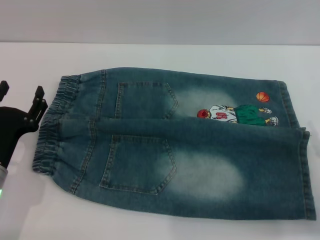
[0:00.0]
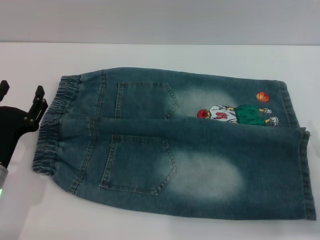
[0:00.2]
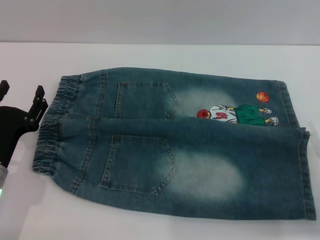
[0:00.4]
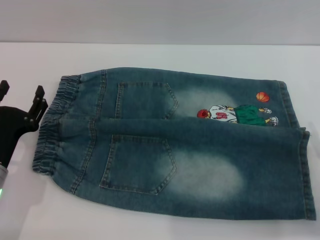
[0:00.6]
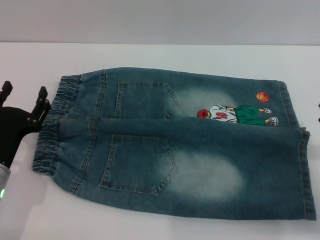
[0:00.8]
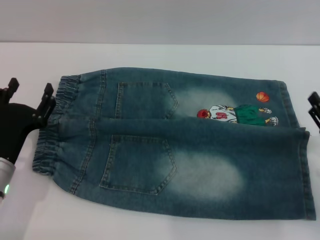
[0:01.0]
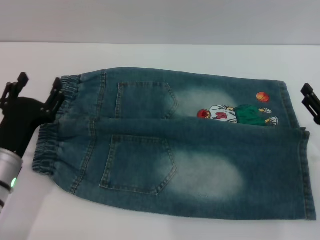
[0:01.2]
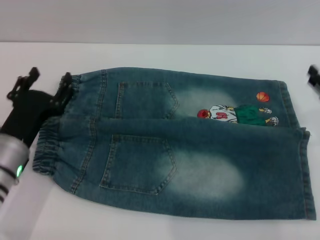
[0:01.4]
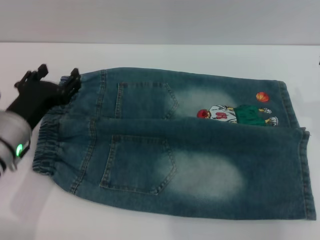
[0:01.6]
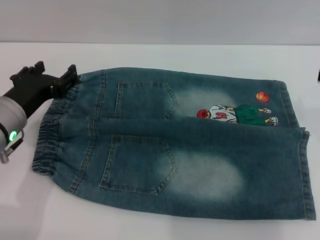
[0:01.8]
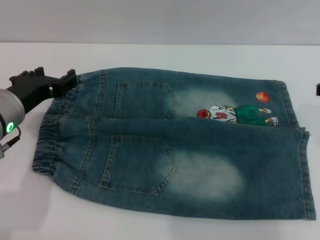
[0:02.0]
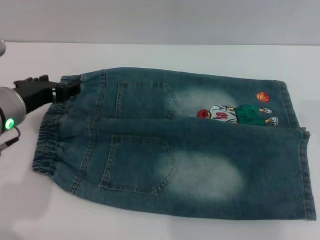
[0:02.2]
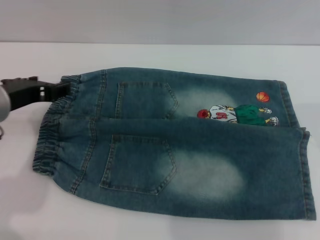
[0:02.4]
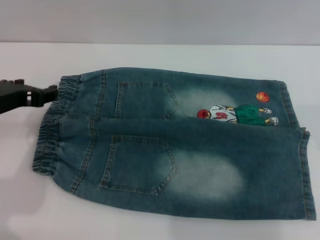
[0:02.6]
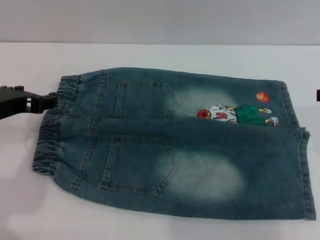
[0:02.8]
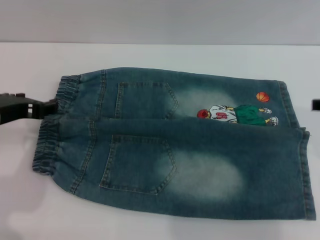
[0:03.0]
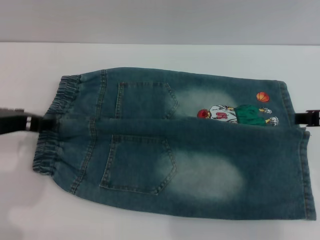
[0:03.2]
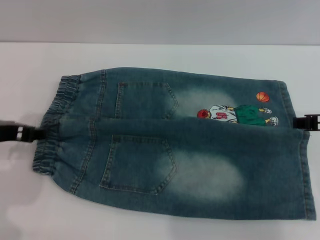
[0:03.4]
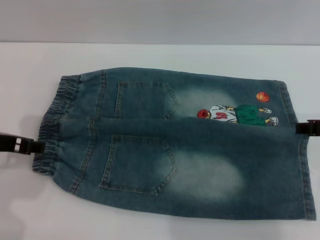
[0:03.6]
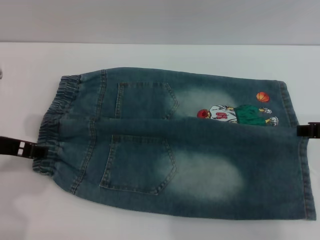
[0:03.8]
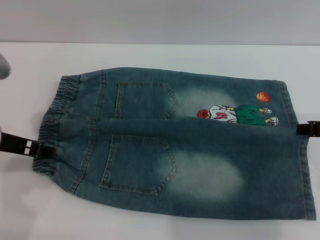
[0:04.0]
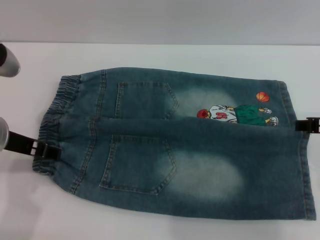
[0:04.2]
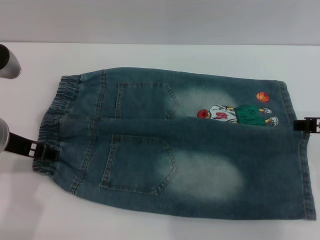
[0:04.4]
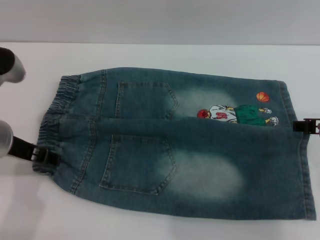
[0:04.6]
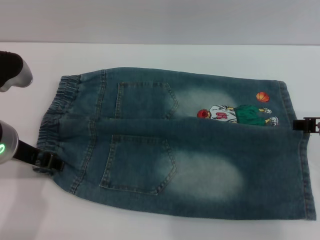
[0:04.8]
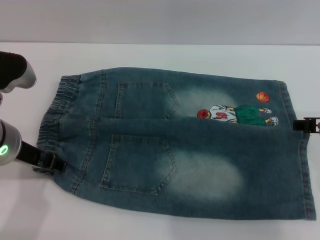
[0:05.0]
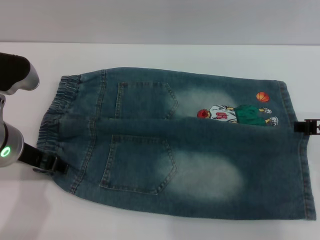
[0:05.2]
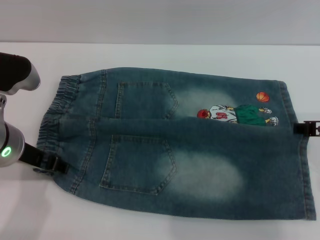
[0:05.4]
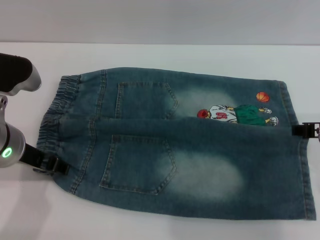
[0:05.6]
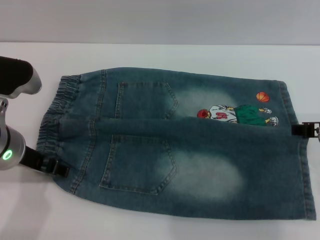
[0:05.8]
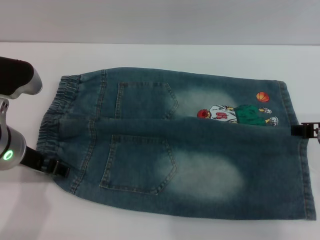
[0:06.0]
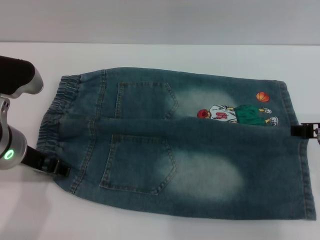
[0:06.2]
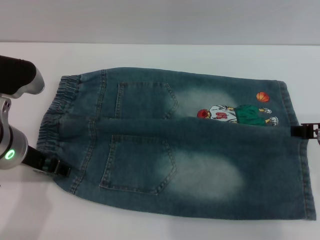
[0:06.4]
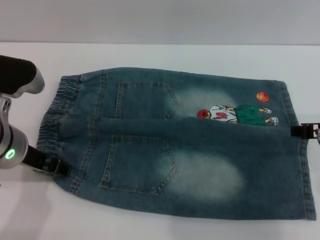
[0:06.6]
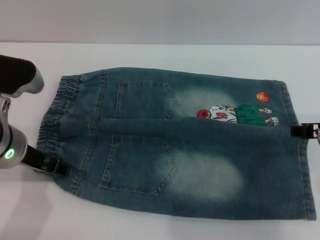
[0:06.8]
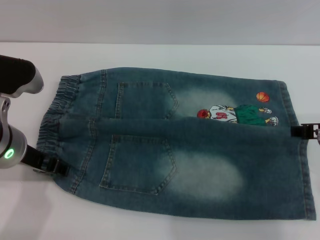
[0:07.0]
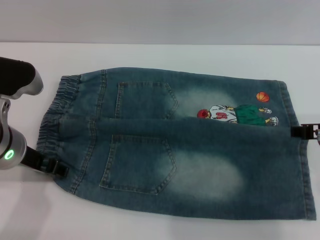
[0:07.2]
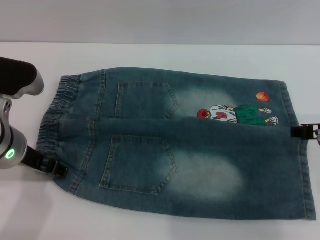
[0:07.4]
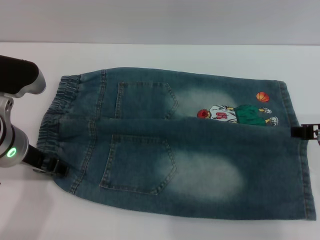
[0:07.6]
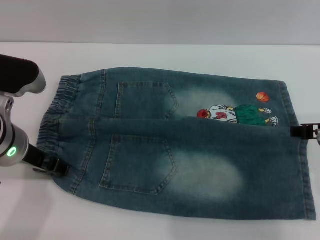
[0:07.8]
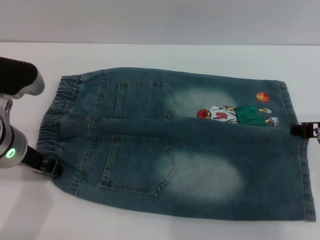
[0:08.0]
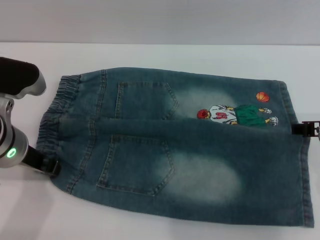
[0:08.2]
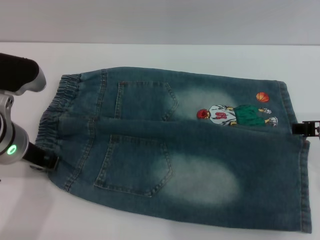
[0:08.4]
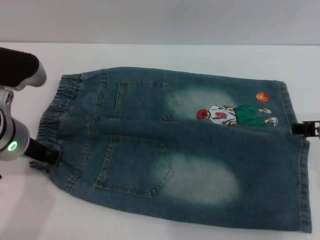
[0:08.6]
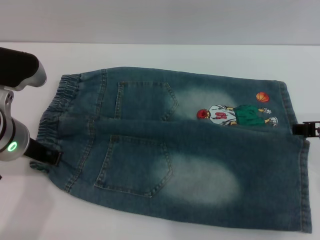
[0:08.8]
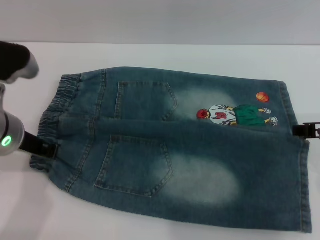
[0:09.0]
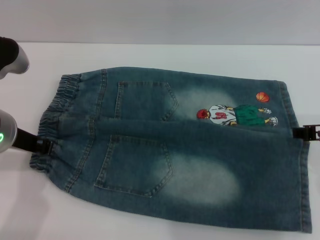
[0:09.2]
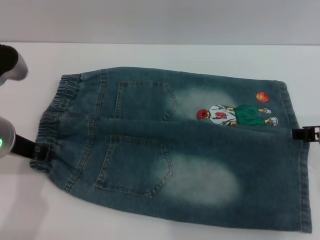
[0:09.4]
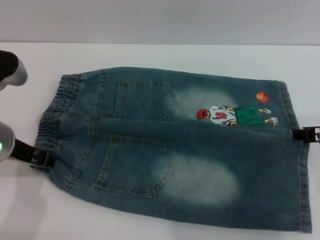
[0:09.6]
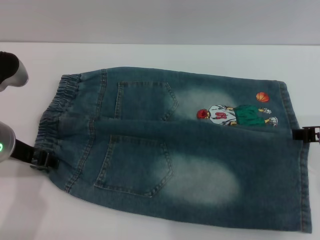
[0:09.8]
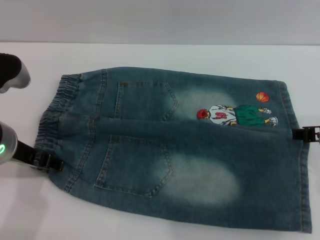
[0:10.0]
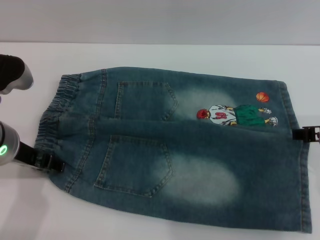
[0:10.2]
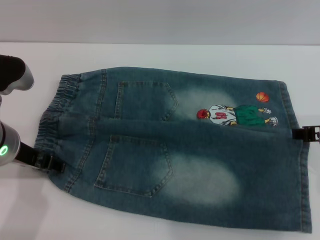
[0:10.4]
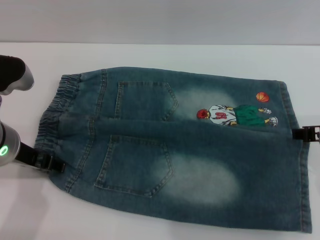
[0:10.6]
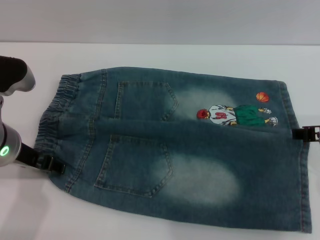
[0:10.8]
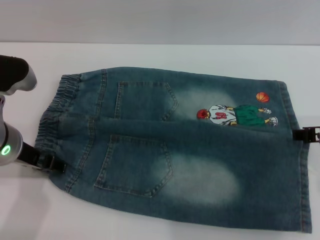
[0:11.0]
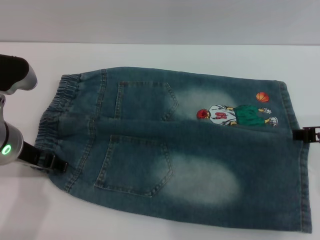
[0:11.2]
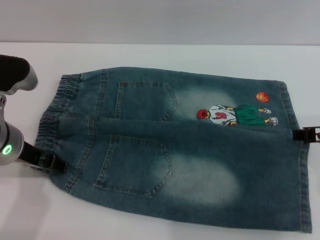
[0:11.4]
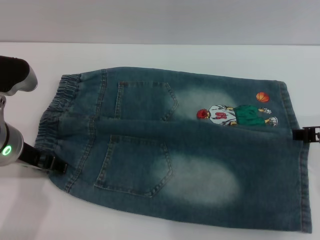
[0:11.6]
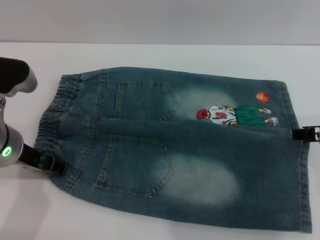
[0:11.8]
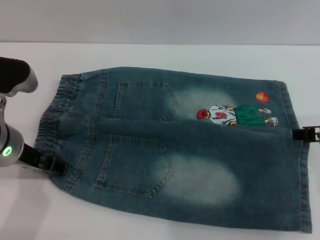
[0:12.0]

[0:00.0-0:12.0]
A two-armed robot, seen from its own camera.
0:00.0 to 0:01.6: The right gripper shifts about 15 cm upward and forward, while the left gripper travels upward by some 5 cm.
0:01.6 to 0:03.0: The left gripper moves upward, approximately 10 cm.
0:04.4 to 0:06.0: The grippers make only small movements.
0:06.0 to 0:07.6: The two grippers keep their place.
0:07.6 to 0:09.0: The left gripper closes.
0:09.0 to 0:10.4: The left gripper opens its fingers.
0:10.4 to 0:12.0: Both grippers stay put.

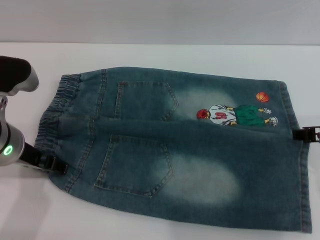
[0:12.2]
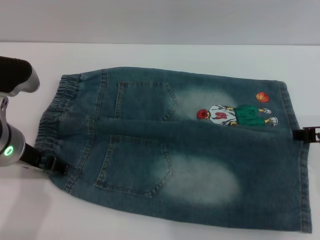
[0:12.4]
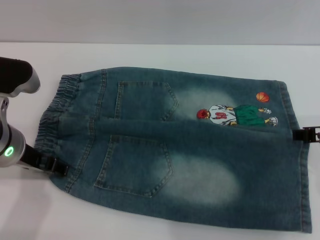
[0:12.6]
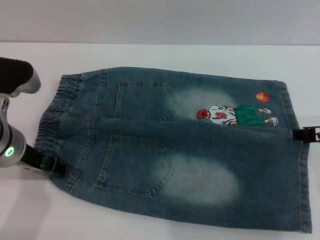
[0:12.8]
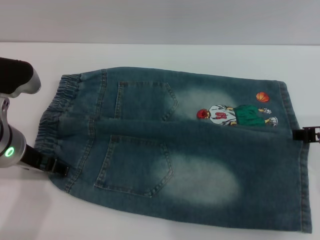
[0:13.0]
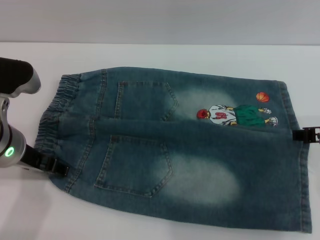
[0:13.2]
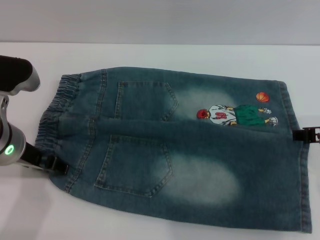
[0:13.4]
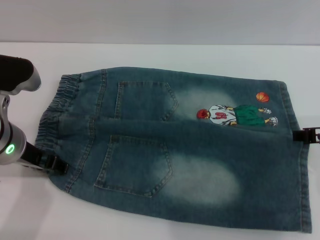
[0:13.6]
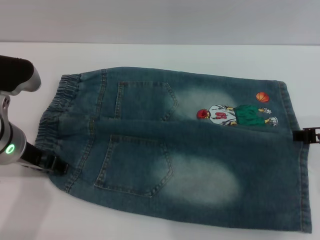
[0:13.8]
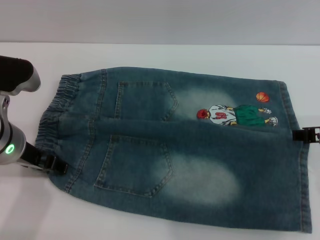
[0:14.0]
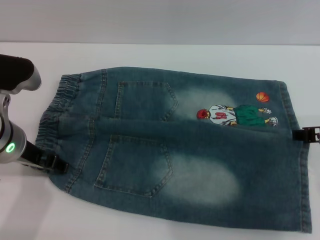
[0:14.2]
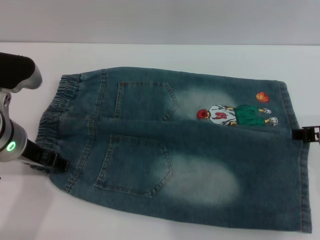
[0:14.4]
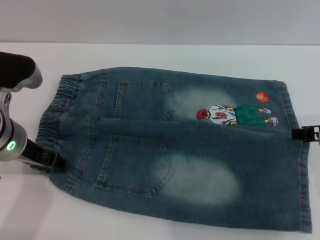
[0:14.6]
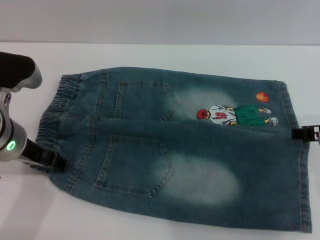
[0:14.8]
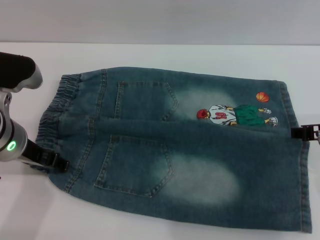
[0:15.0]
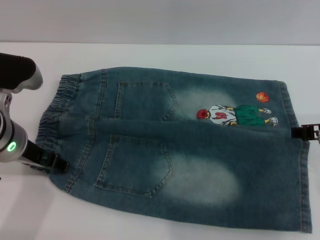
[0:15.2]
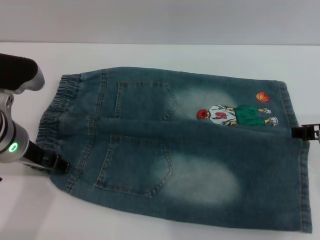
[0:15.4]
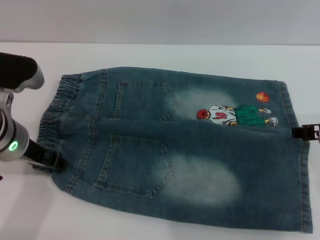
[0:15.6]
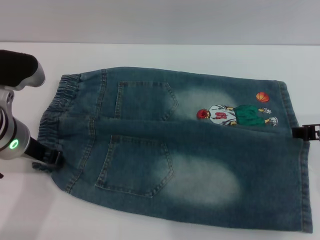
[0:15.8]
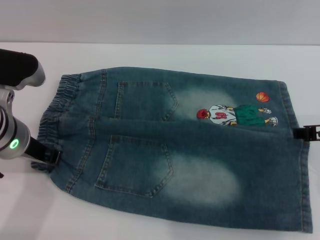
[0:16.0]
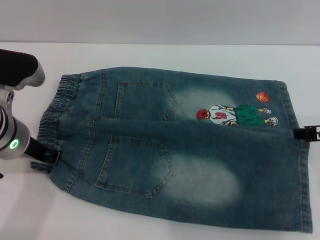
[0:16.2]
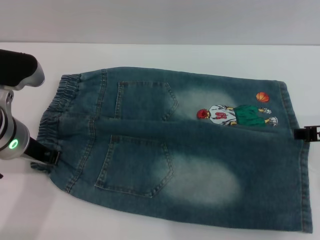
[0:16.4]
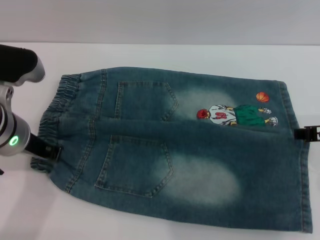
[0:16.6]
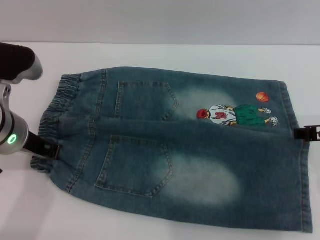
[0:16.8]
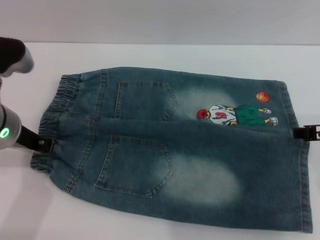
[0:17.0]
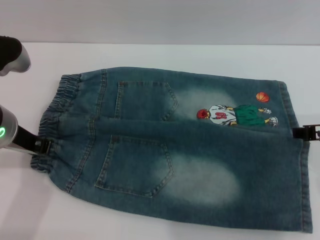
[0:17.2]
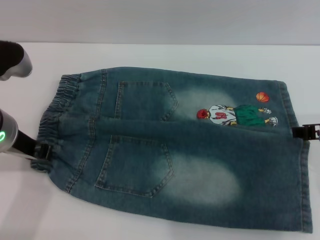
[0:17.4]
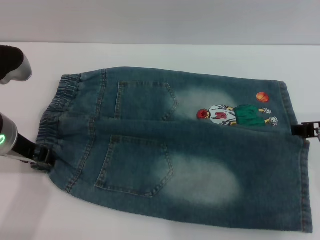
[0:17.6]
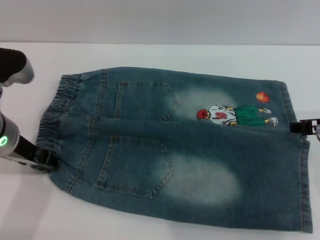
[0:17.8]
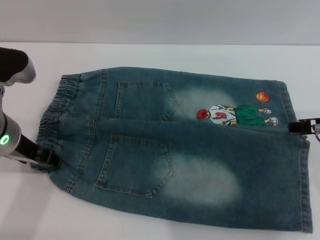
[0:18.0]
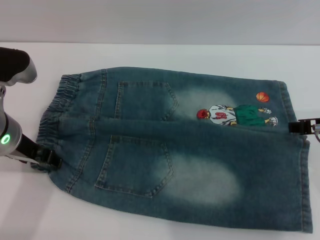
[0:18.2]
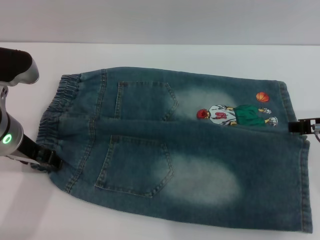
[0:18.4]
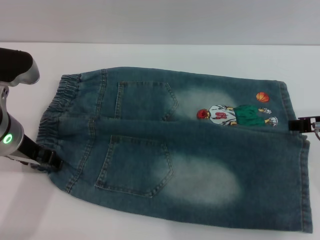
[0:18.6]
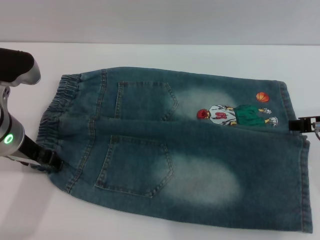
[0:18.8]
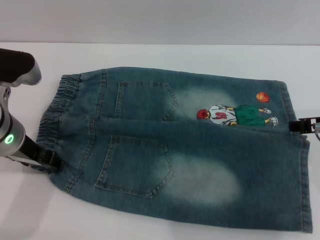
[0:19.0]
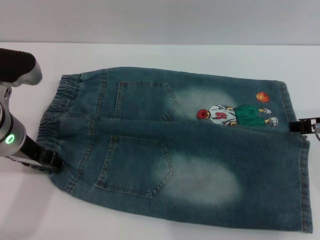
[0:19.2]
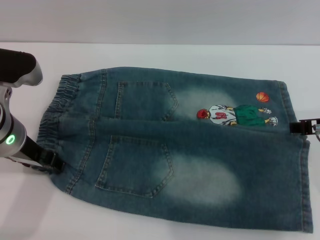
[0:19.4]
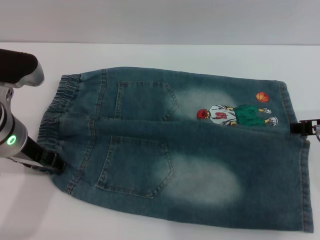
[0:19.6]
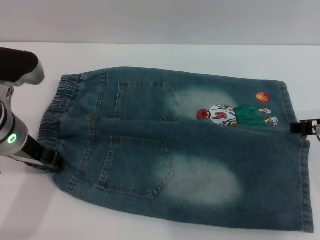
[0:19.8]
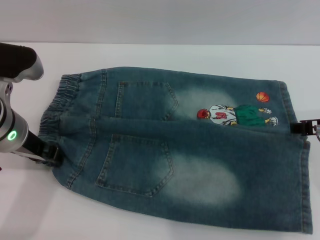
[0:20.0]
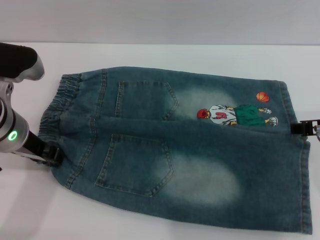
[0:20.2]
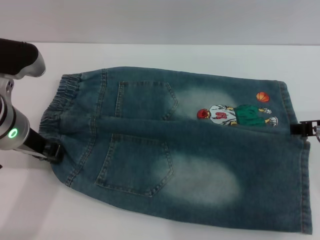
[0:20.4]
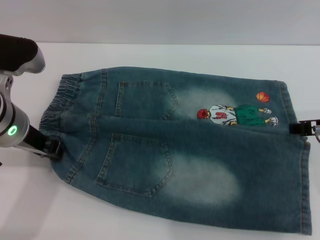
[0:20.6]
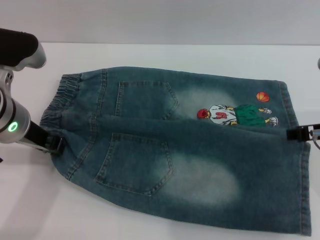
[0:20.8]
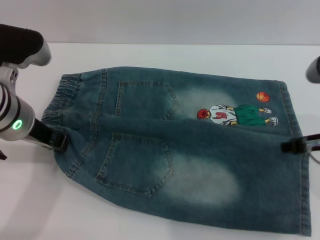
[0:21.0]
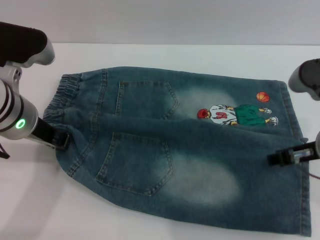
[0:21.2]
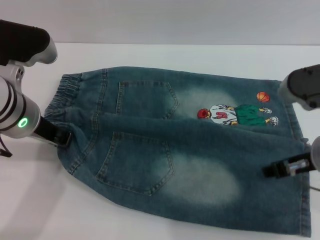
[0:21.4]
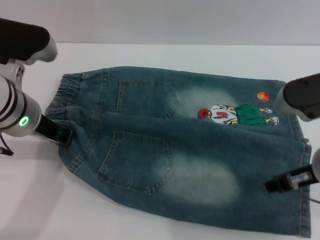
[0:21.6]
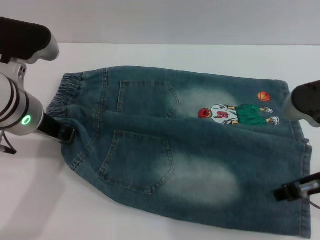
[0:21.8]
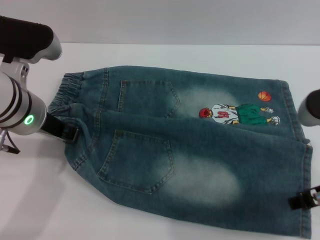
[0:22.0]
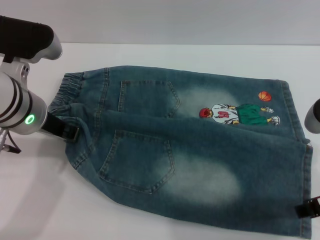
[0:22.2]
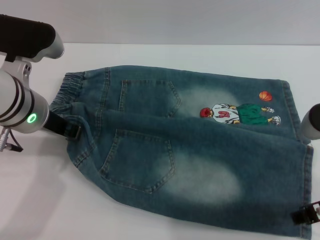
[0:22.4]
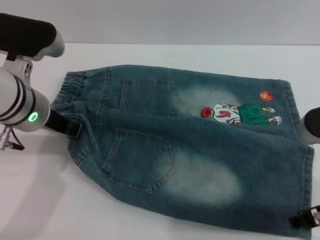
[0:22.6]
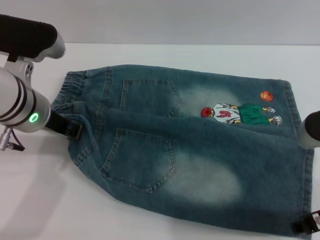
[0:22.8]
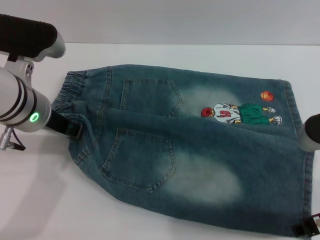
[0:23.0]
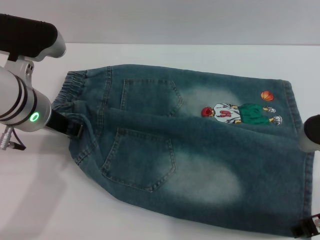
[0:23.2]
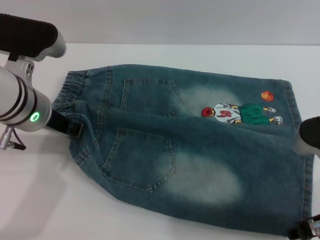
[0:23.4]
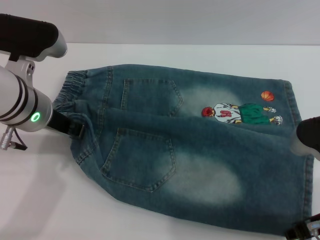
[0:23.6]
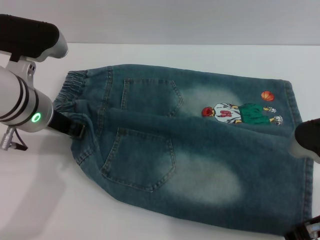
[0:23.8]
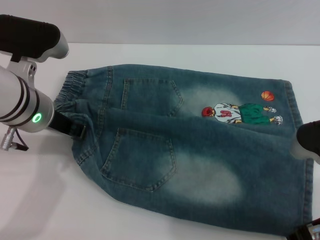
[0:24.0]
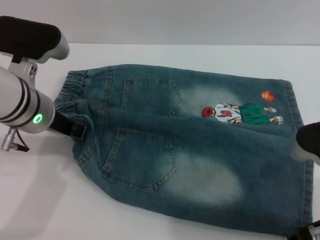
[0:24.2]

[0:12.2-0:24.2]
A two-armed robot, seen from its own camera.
0:12.2 to 0:15.2: Neither gripper changes place.
0:15.2 to 0:16.6: The left gripper closes up.
0:16.6 to 0:18.2: The left gripper opens up.
0:18.2 to 0:19.8: Neither gripper changes place.
0:19.8 to 0:21.2: The left gripper closes up.
0:21.2 to 0:22.6: The right gripper moves backward, about 5 cm.
0:22.6 to 0:24.2: There are only small adjustments of the grippers.
